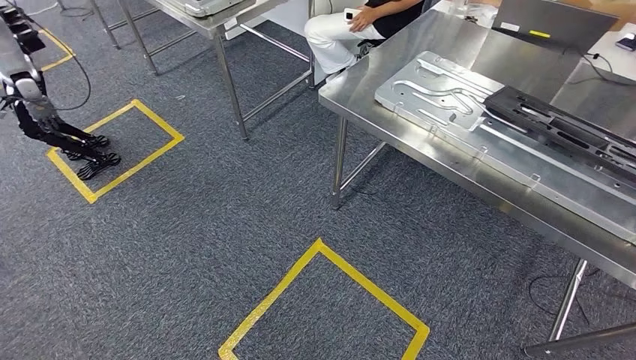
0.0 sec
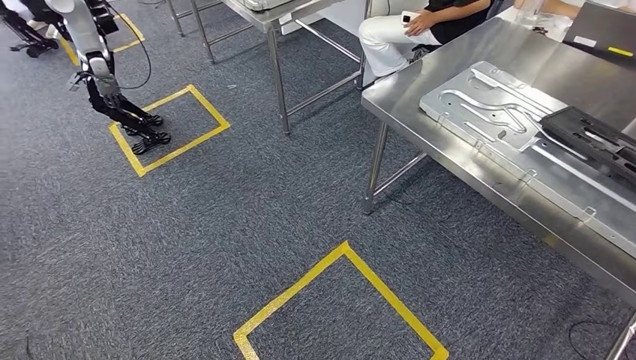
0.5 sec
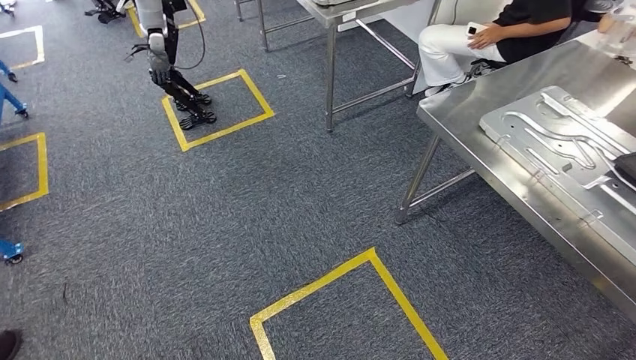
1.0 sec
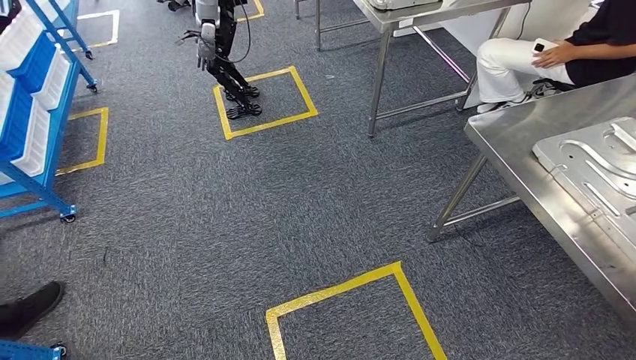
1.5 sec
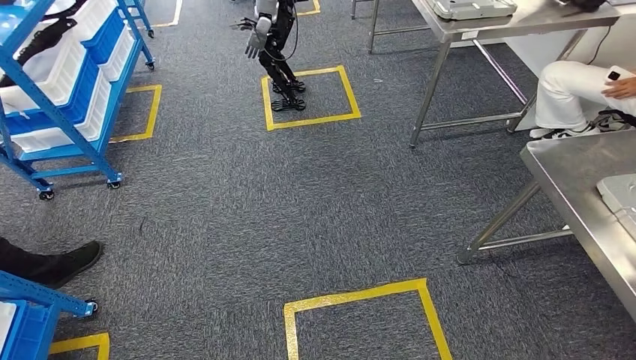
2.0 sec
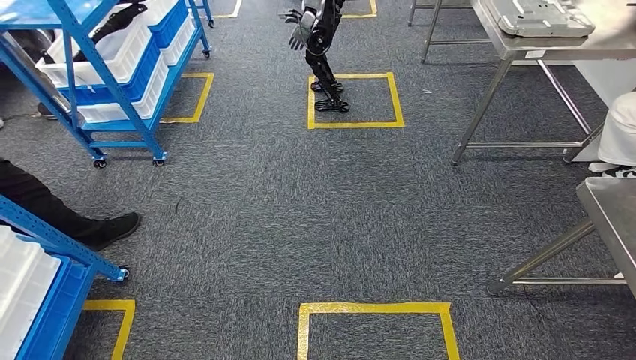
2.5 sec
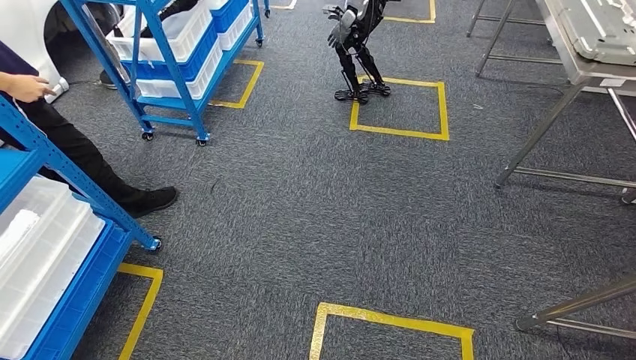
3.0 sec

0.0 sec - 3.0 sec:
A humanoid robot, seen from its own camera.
Step, 0.0 sec - 3.0 sec: Move to the initial position of the shelf.
